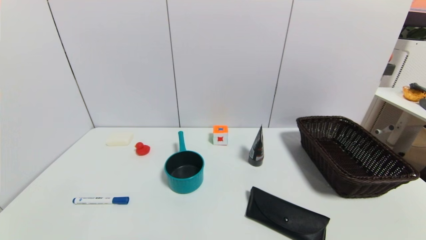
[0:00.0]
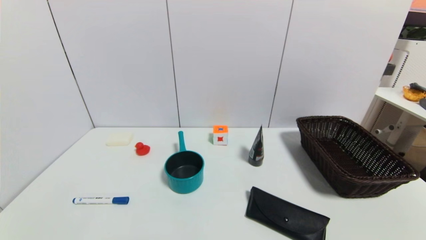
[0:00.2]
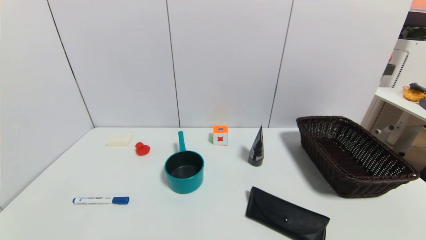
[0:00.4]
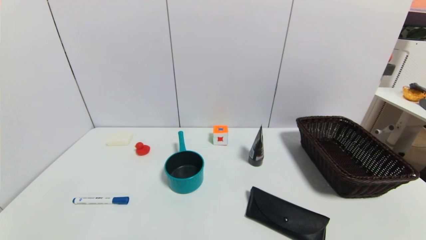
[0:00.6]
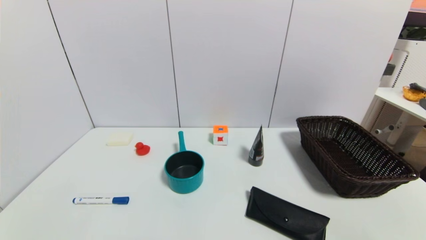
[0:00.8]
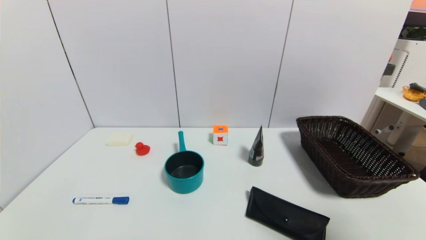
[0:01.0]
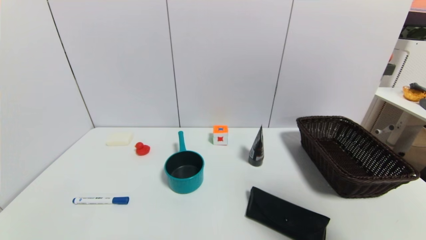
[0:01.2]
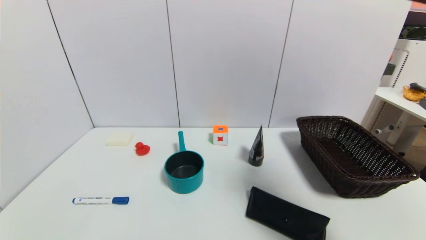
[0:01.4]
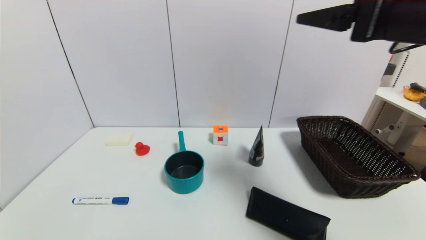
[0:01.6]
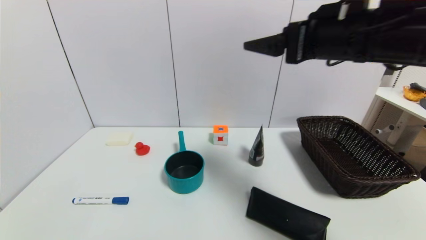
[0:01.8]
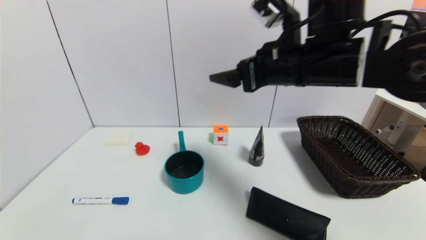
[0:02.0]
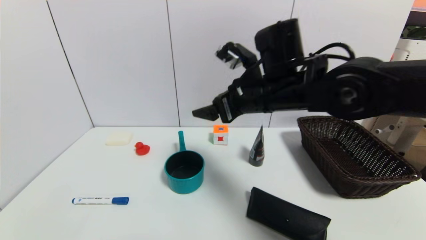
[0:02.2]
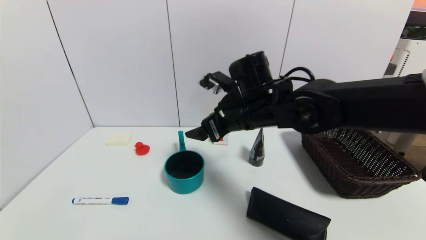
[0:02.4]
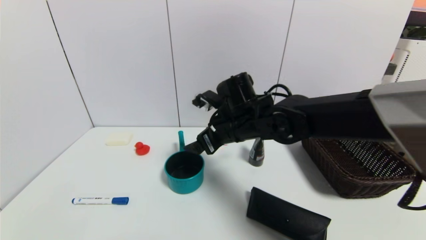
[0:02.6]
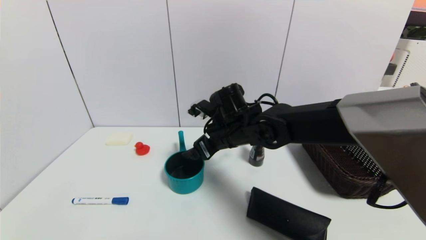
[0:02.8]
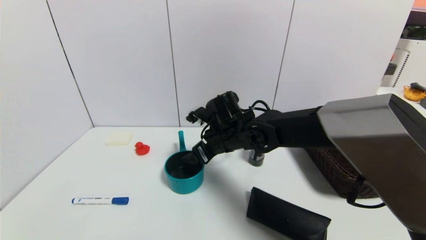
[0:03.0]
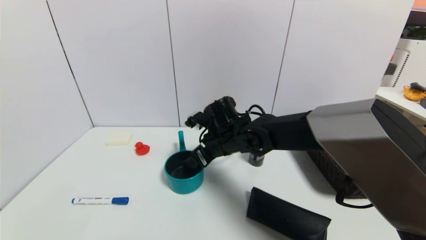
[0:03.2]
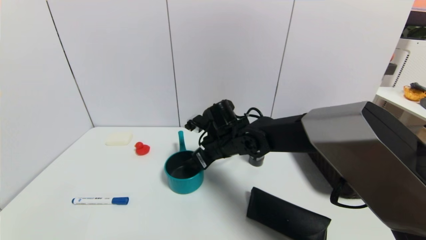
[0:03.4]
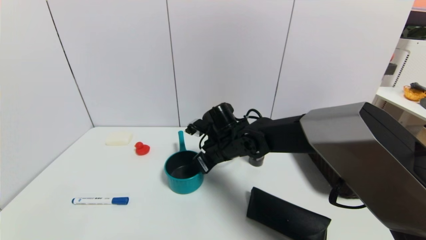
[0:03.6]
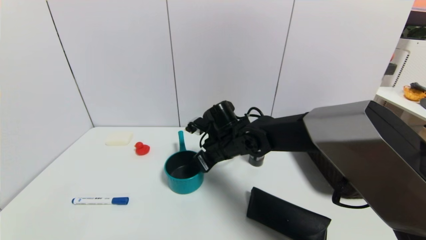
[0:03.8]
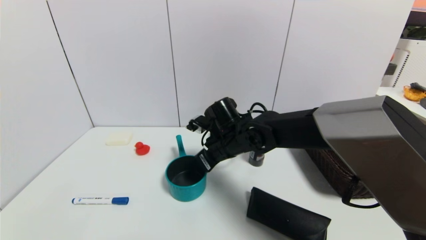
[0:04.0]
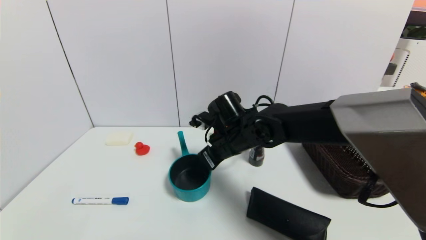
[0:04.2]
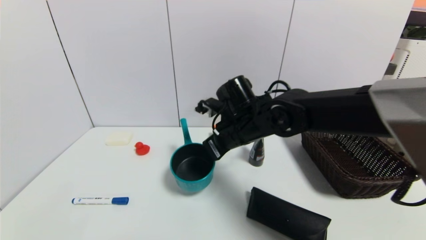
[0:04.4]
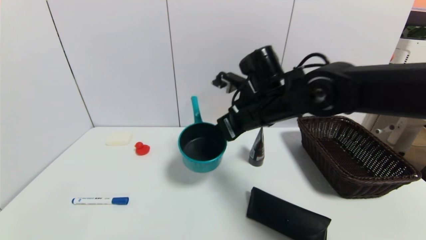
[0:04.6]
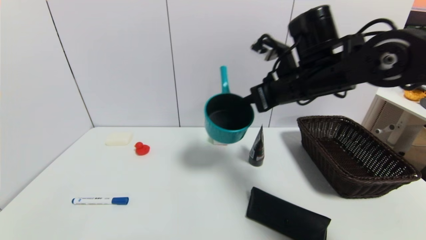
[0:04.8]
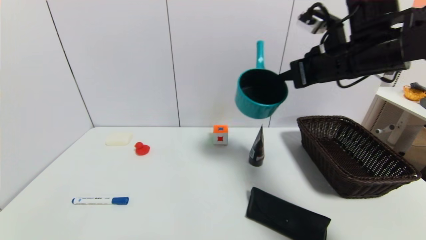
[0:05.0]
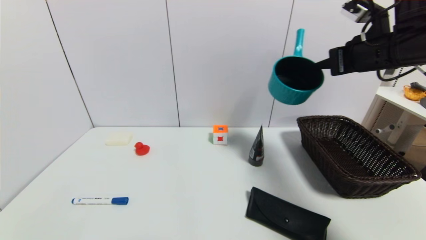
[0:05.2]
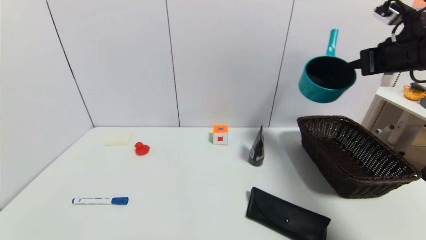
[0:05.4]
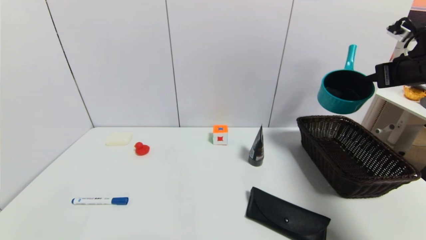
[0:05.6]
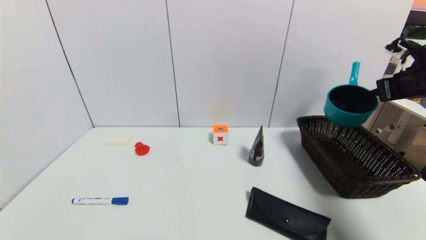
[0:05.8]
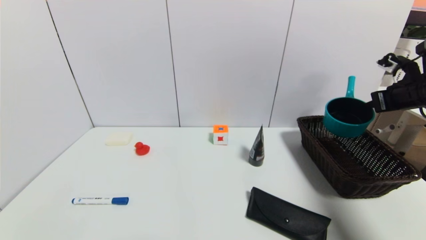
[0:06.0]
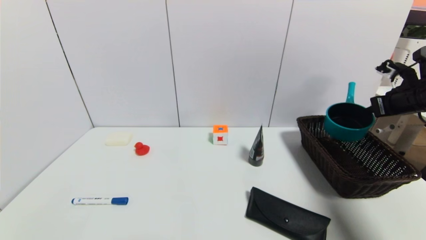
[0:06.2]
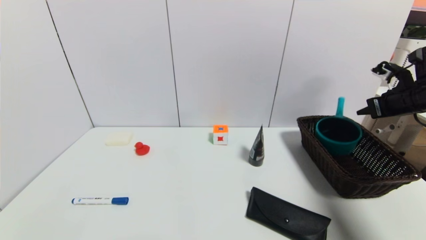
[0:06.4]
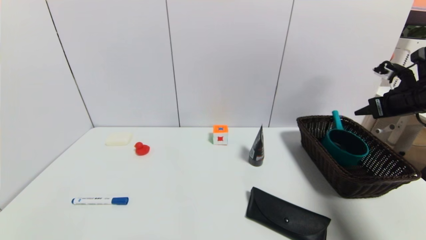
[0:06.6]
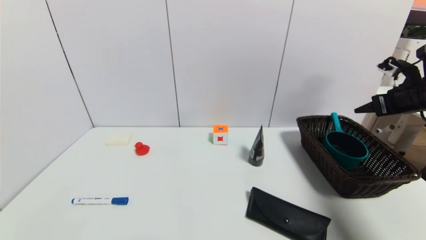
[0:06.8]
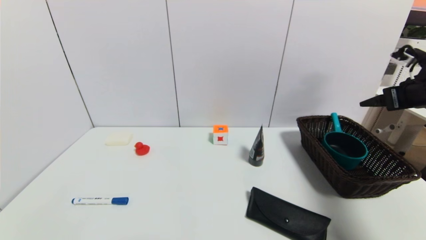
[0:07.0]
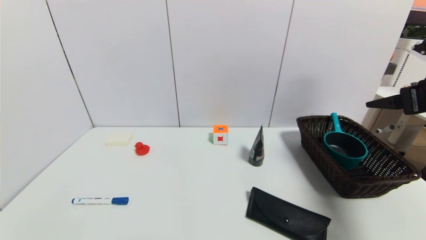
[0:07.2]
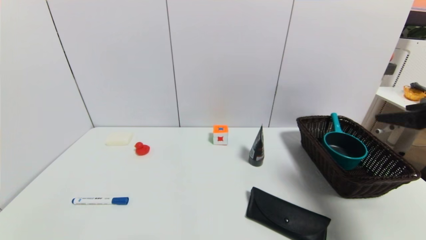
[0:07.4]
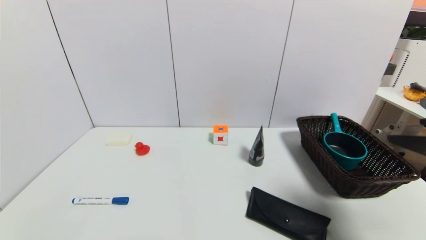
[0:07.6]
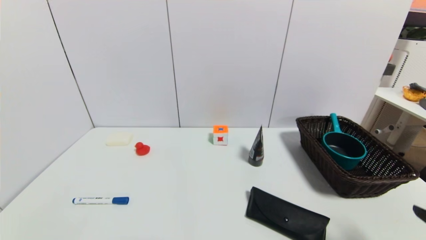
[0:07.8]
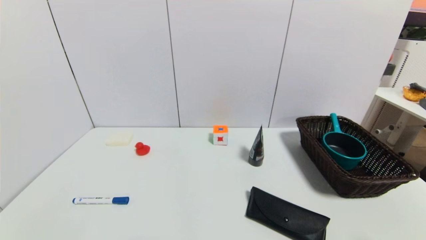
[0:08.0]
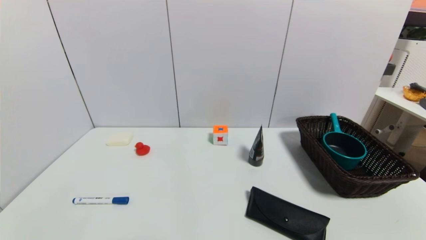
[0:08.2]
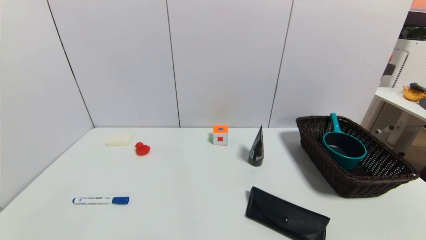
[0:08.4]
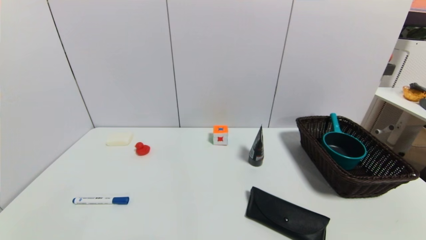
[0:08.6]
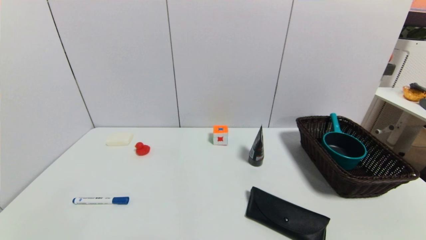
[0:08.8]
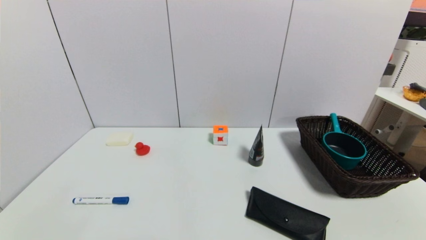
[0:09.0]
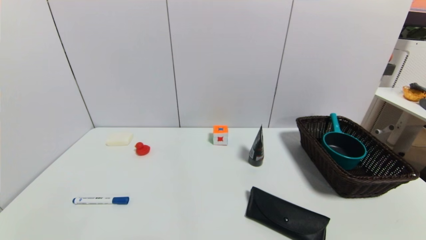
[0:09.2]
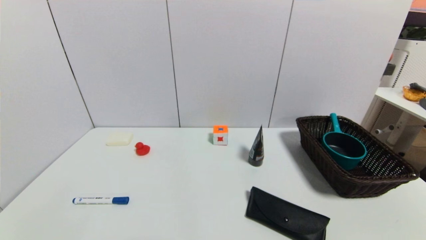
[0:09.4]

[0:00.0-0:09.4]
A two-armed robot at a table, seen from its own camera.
Task of the whole recording: use a gripper to pick the target object and place on the brown basket.
Step, 0:00.0 to 0:03.8: Grasp the blue pot with the right gripper.
Step, 0:04.0 to 0:06.8: Place the blue pot into the basket with the right gripper.
0:00.0 to 0:01.6: The right gripper shifts about 40 cm upward and forward.
0:01.6 to 0:03.2: The right gripper heads downward, to the left and forward, covering approximately 35 cm.
0:03.2 to 0:04.8: The right gripper shifts roughly 20 cm upward and to the right, and closes.
0:04.8 to 0:06.2: The right gripper travels to the right by roughly 30 cm.
0:06.2 to 0:07.8: The right gripper heads backward, covering about 30 cm, and opens up.
